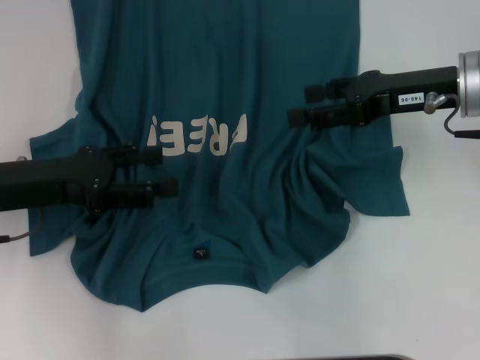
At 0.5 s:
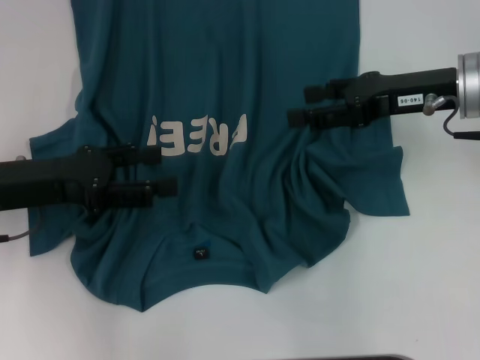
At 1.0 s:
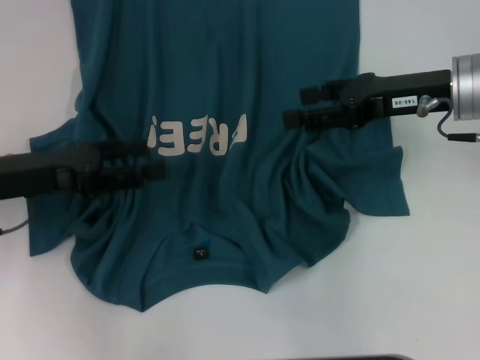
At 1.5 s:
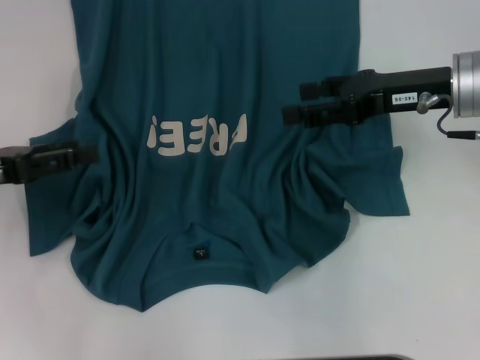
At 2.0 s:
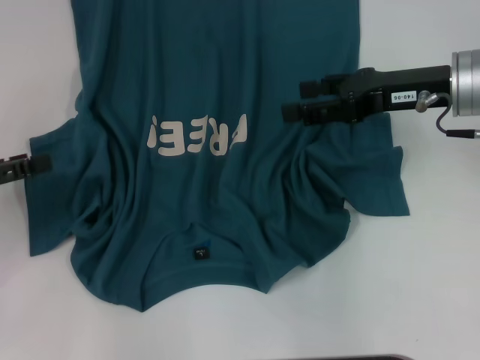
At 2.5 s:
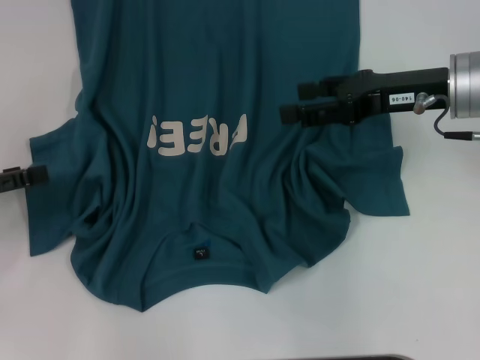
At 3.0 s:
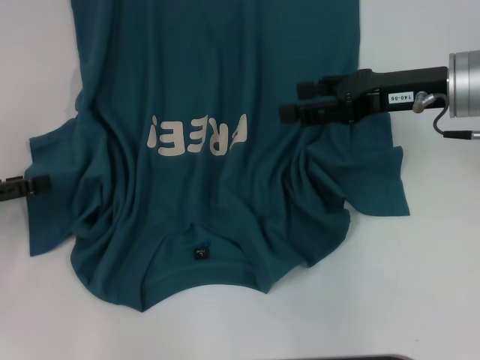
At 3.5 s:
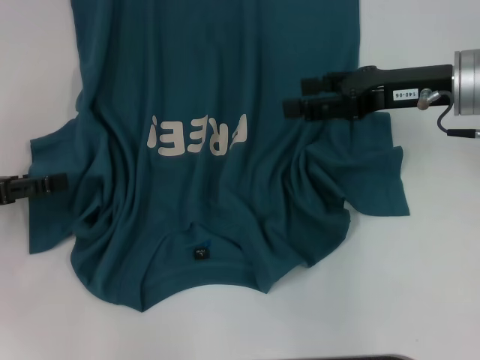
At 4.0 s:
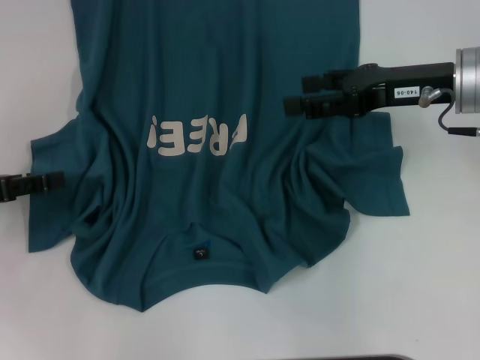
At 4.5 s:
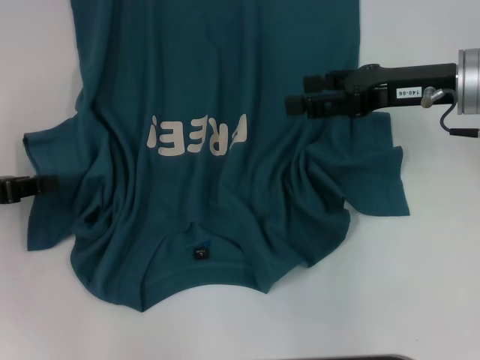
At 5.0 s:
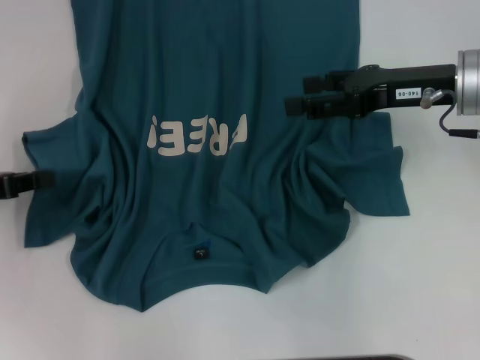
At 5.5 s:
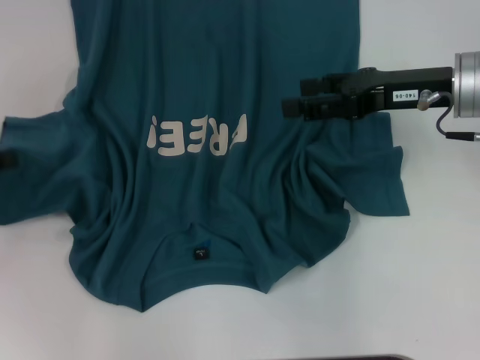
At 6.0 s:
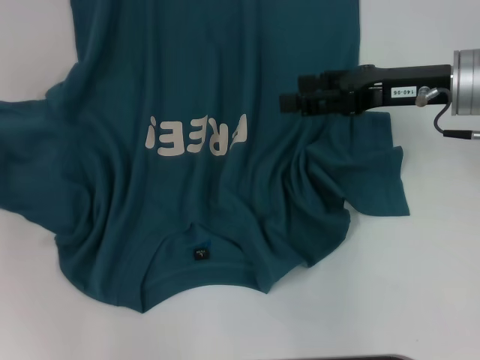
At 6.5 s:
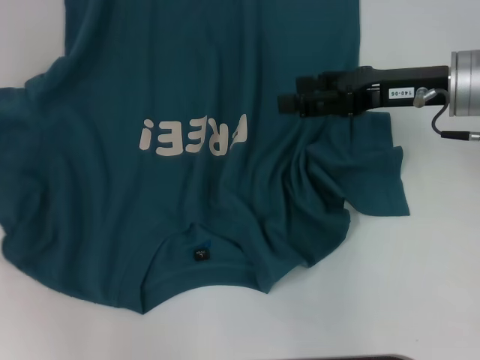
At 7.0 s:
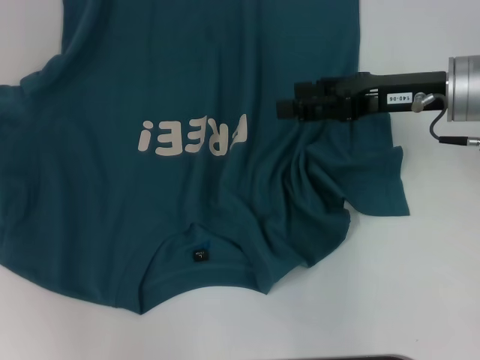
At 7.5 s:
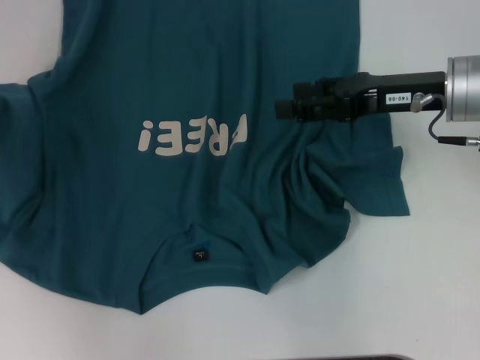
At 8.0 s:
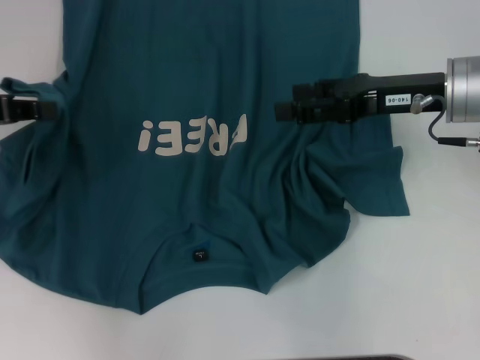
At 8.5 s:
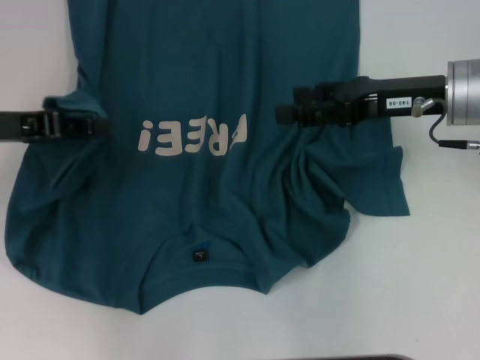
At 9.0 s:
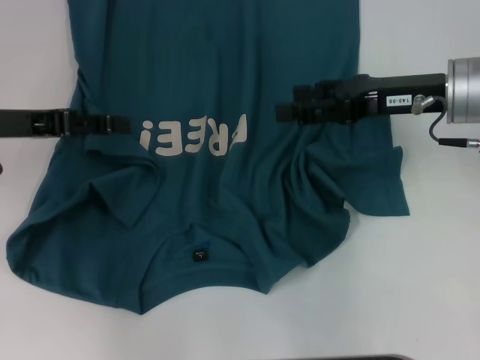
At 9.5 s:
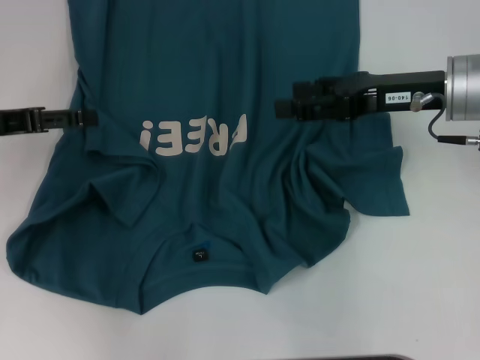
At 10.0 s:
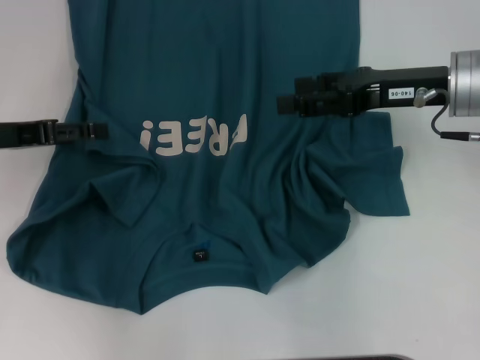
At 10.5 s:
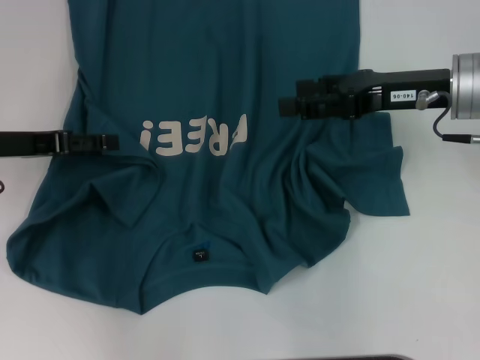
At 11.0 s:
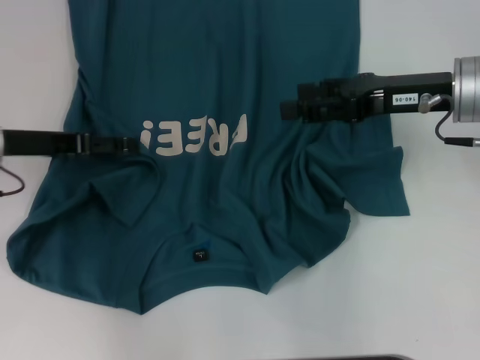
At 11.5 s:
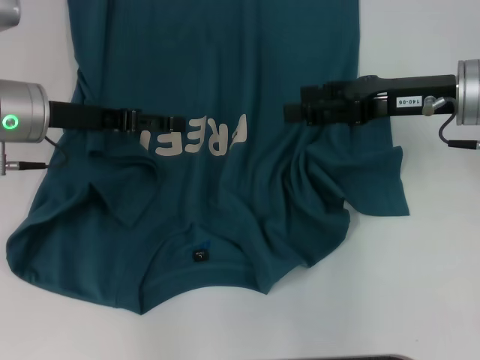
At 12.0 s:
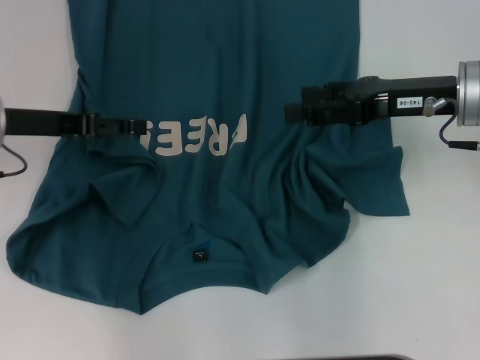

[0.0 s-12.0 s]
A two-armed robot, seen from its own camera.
0.0 to 2.0 s: The left gripper shifts some 10 cm to the left.
2.0 to 4.0 s: The grippers move only a little.
4.0 to 6.0 s: The left gripper changes place by approximately 5 cm, and closes up.
6.0 to 8.0 s: The left gripper moves to the right, roughly 5 cm.
8.0 to 10.0 s: The left gripper moves approximately 5 cm, and opens its fingers.

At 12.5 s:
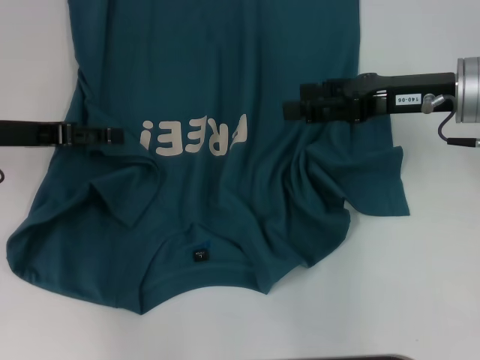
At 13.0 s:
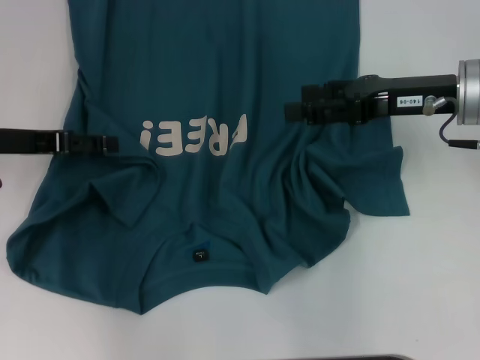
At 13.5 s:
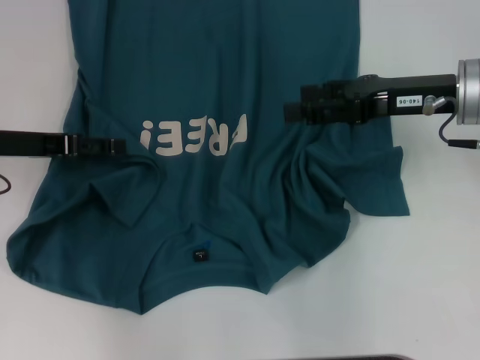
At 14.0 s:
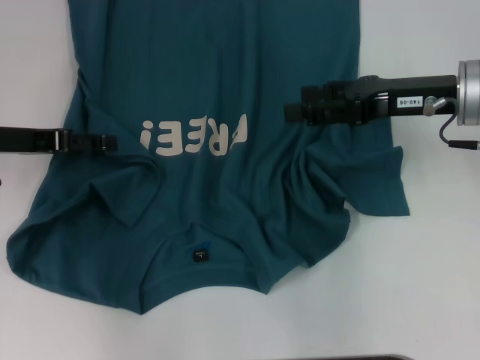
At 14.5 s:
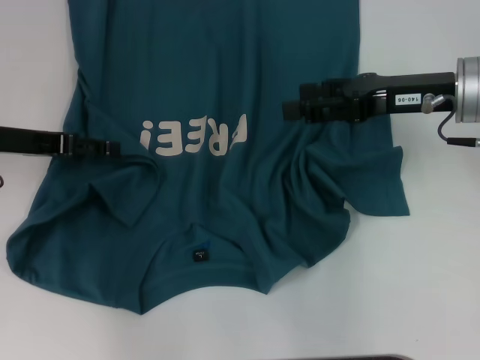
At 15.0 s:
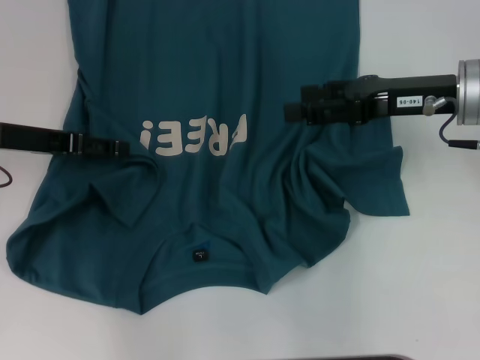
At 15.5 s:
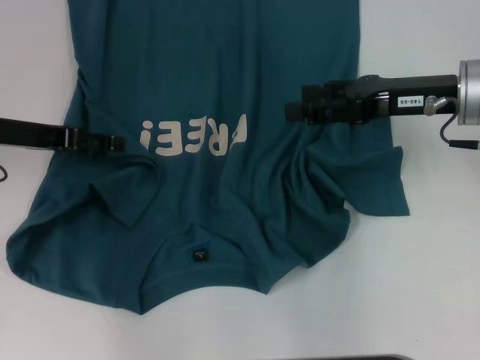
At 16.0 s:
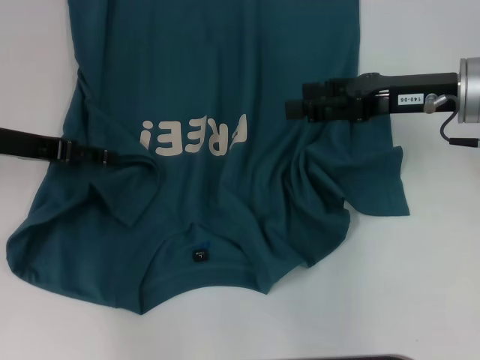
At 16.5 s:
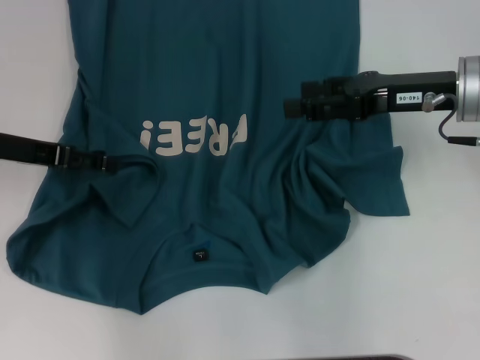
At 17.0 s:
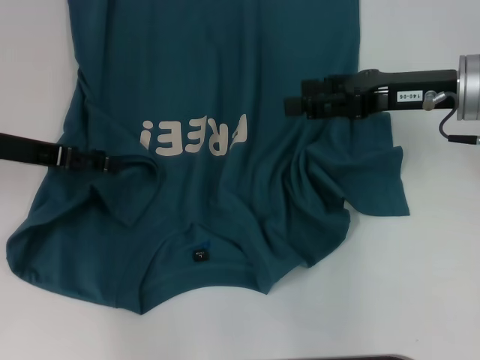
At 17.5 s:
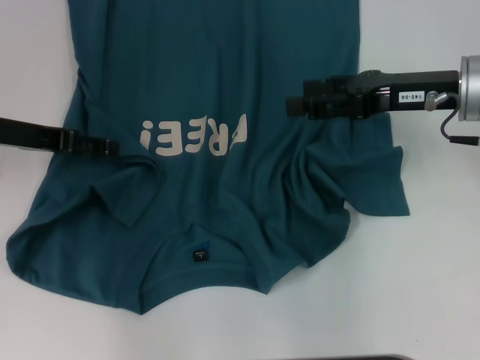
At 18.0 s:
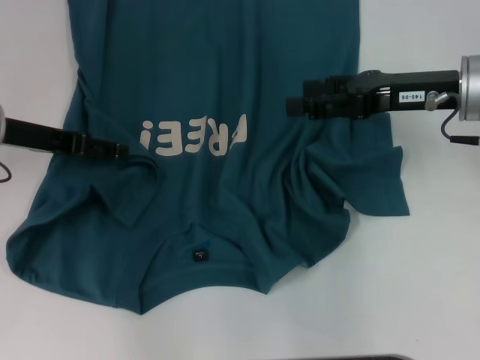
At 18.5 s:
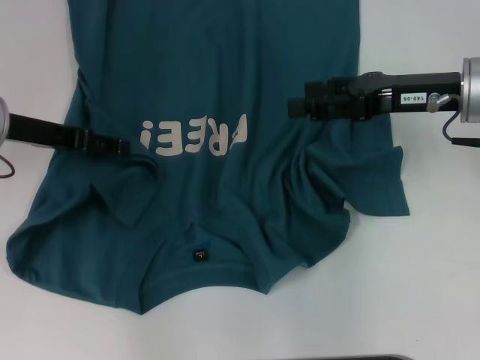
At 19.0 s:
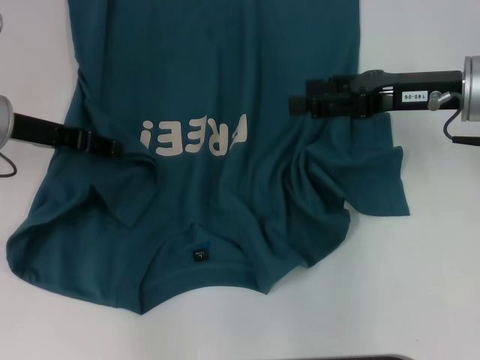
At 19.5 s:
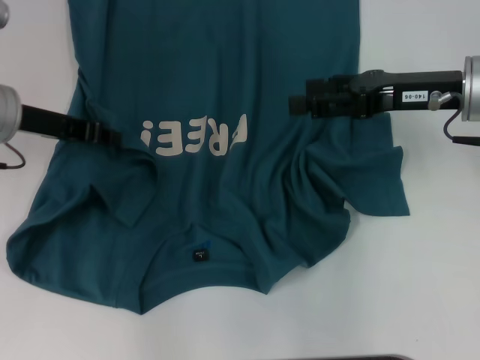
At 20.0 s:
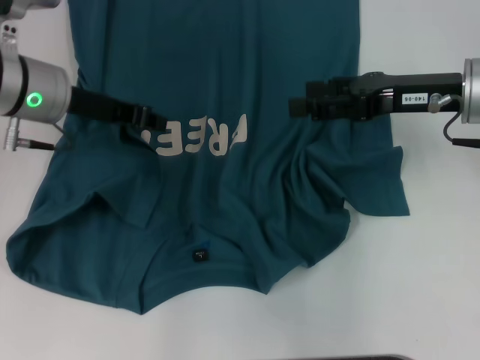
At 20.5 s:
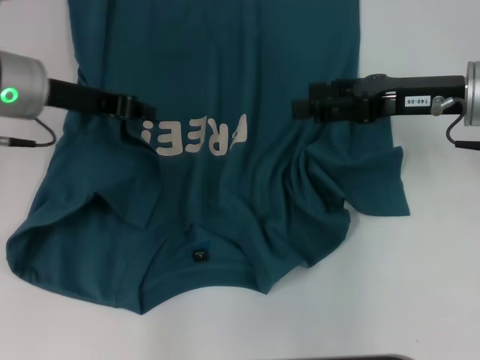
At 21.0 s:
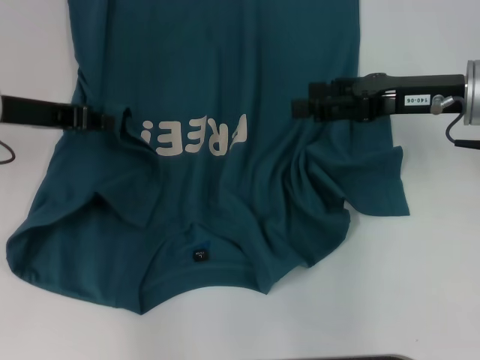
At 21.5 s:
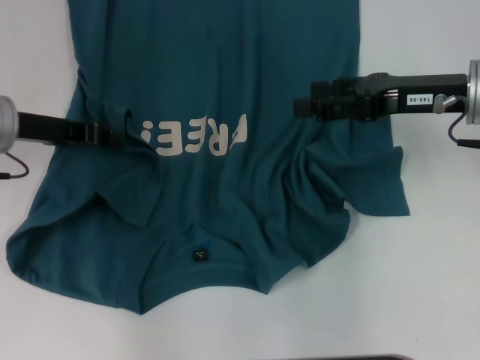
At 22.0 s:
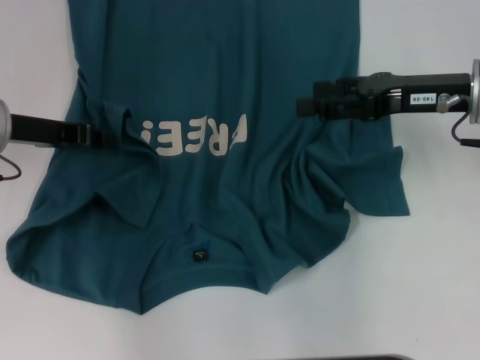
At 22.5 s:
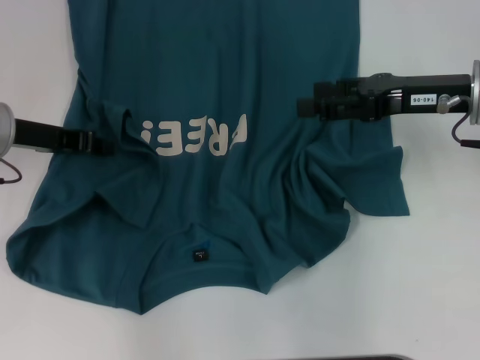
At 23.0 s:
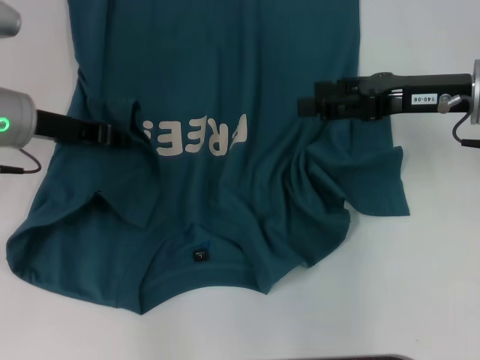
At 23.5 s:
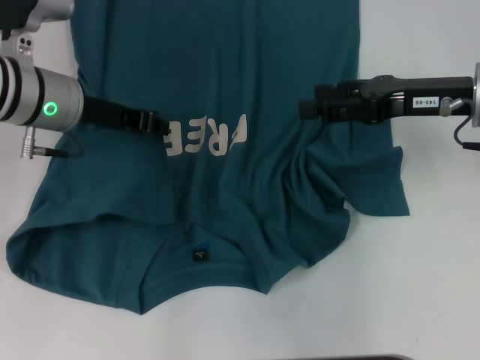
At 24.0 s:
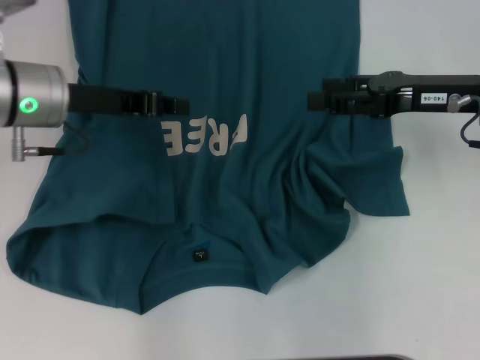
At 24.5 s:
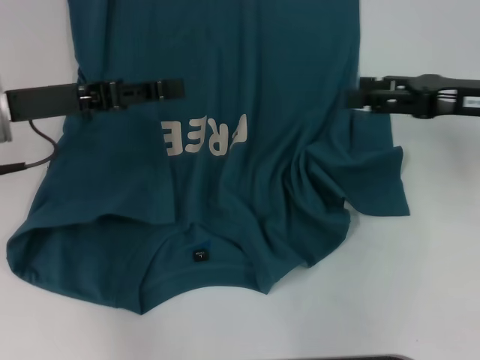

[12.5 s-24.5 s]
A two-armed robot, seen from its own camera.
Step, 12.5 to 24.0 s: Fold the bottom left sleeve with your left hand.
12.5 to 18.5 s: The grippers move only a little.
18.5 to 20.5 s: The left gripper shifts by about 5 cm, and closes its fingers.
20.5 to 22.5 s: The left gripper ends up roughly 5 cm from where it was.
22.5 to 24.5 s: The left gripper changes place by about 5 cm.

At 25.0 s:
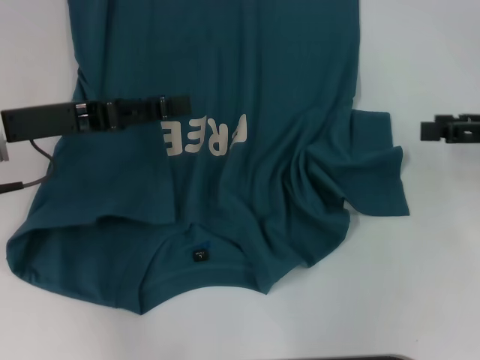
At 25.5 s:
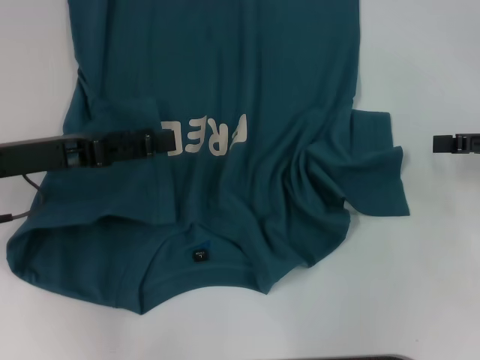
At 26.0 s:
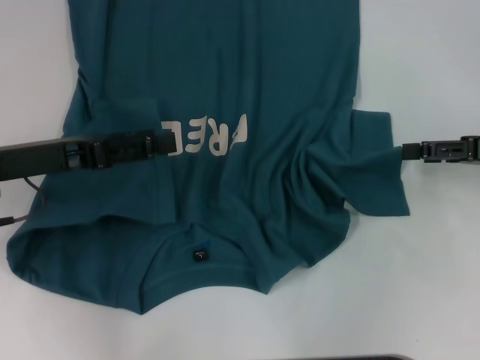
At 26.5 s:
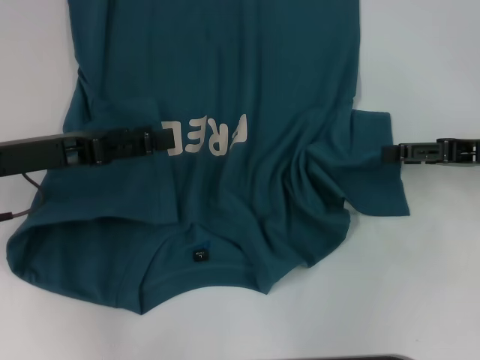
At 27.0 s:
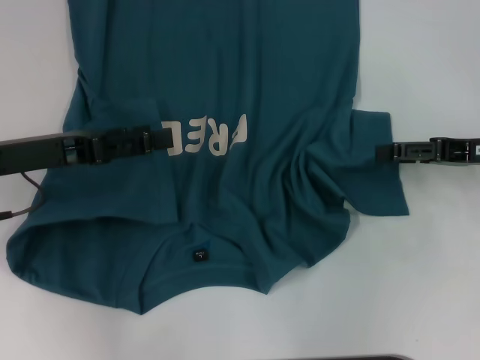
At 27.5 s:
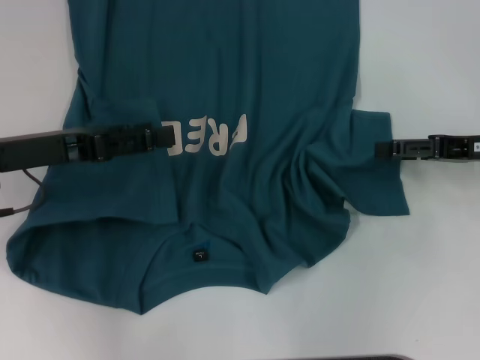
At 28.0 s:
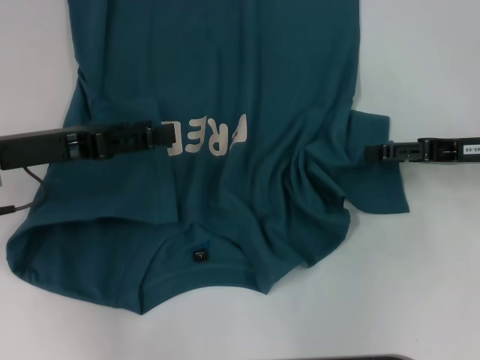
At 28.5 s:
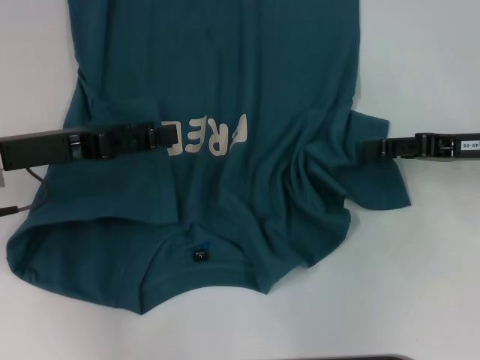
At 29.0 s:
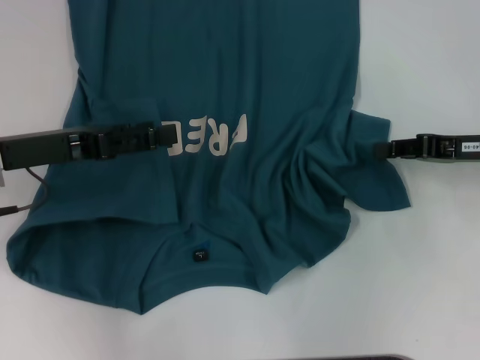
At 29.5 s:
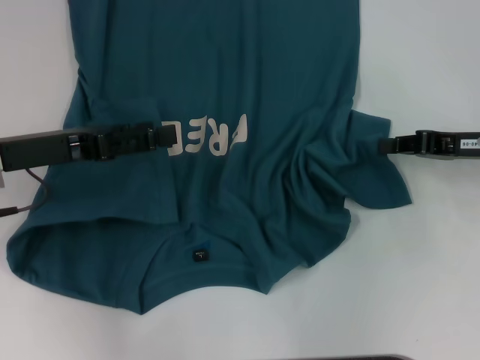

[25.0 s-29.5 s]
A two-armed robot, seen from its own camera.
25.0 to 27.0 s: The right gripper moves about 5 cm.
27.0 to 29.5 s: The right gripper closes its fingers.
